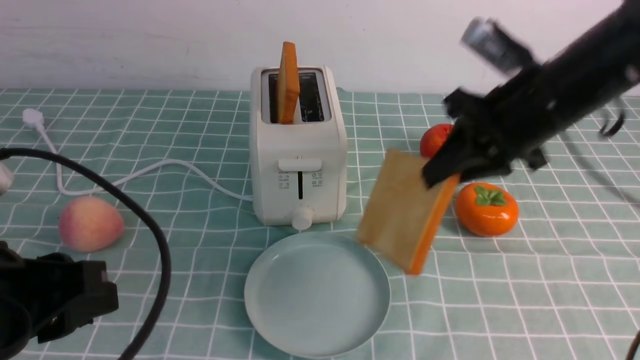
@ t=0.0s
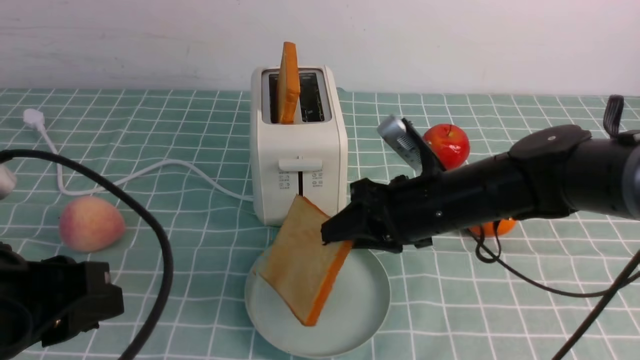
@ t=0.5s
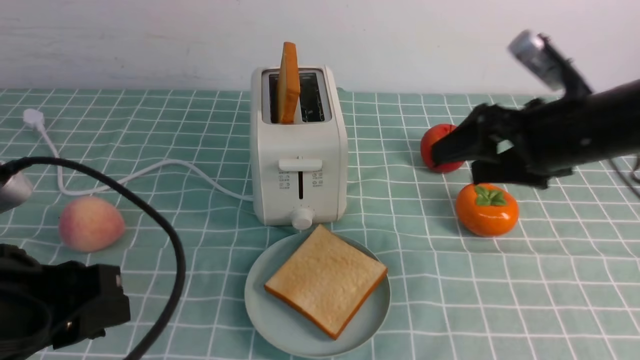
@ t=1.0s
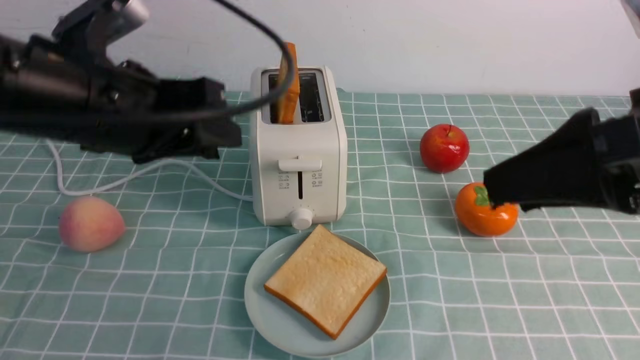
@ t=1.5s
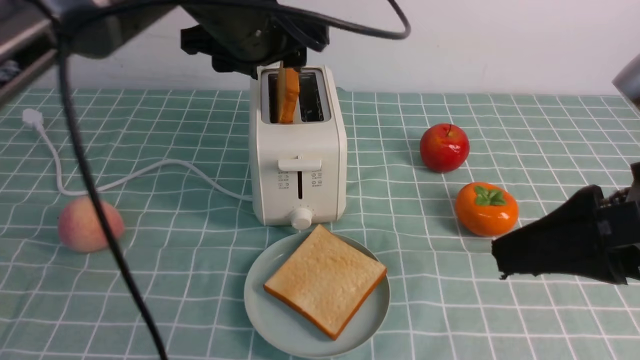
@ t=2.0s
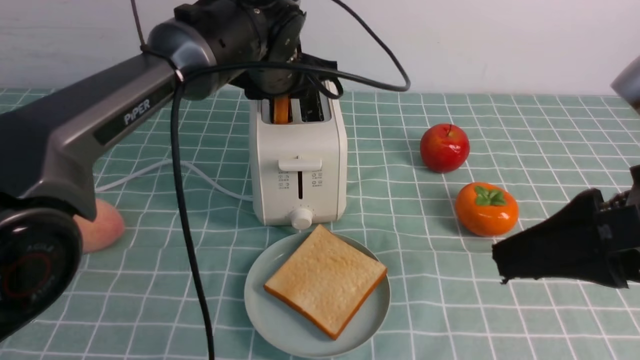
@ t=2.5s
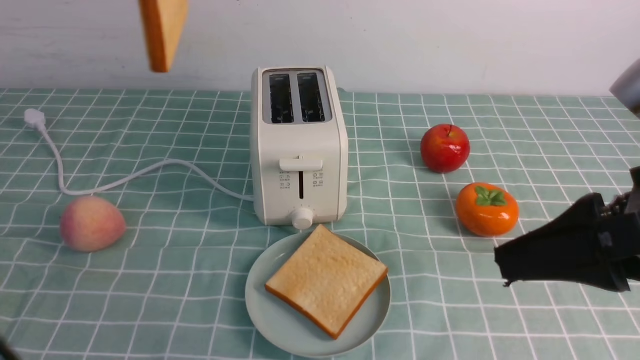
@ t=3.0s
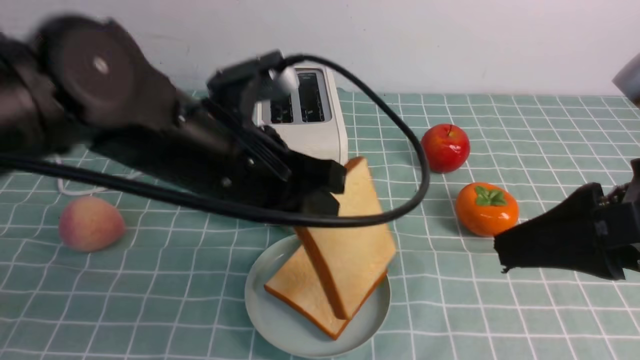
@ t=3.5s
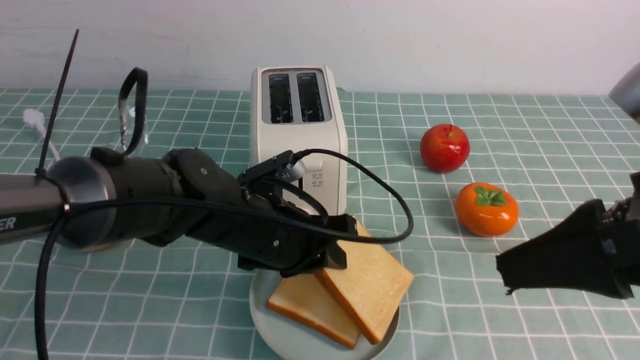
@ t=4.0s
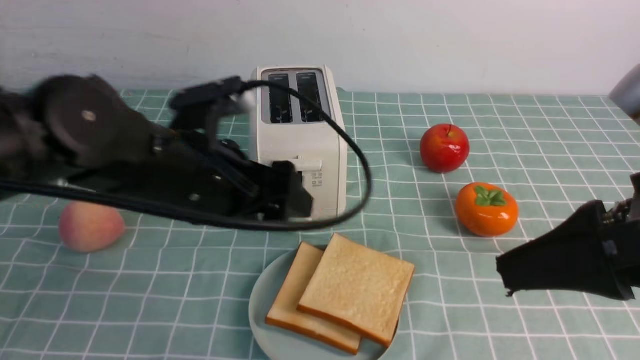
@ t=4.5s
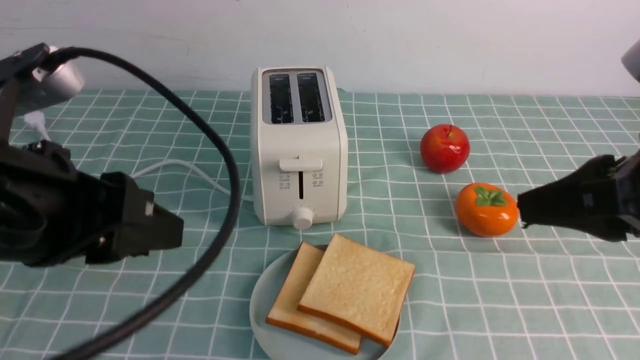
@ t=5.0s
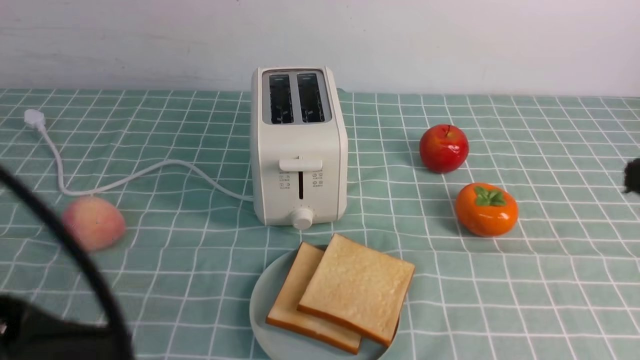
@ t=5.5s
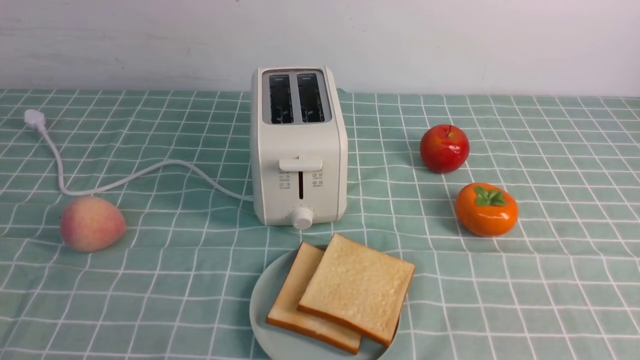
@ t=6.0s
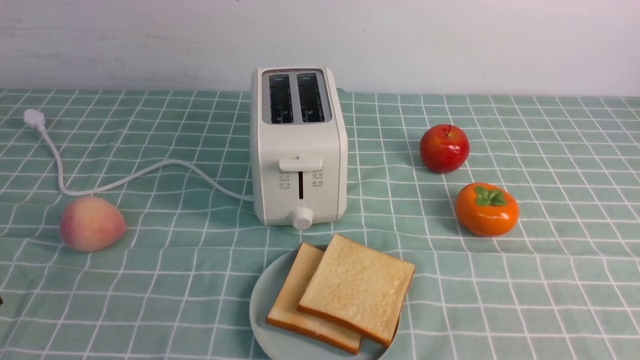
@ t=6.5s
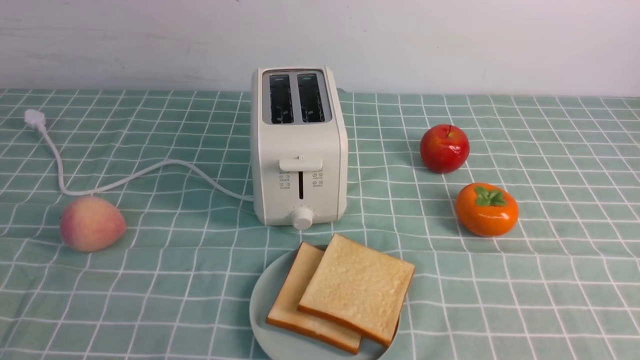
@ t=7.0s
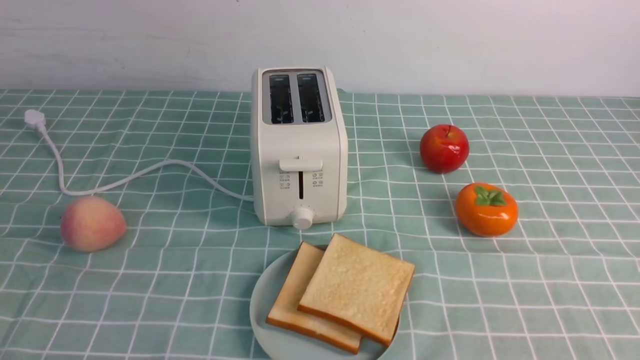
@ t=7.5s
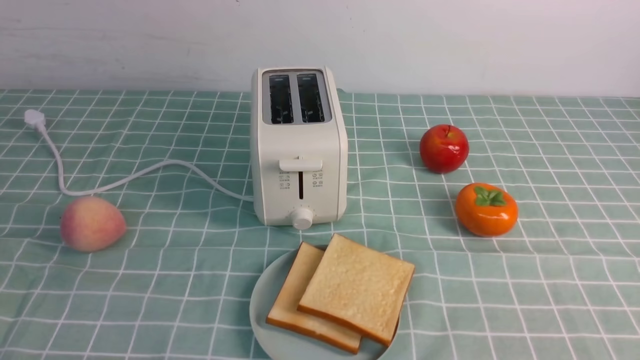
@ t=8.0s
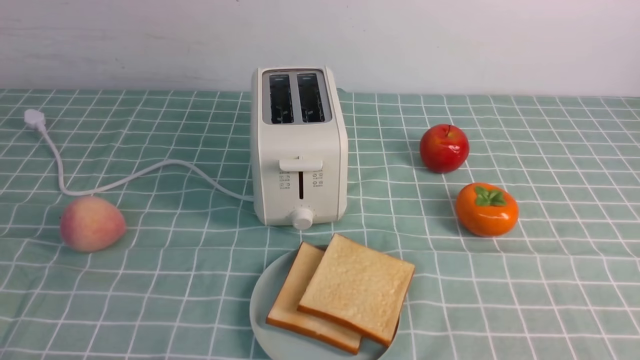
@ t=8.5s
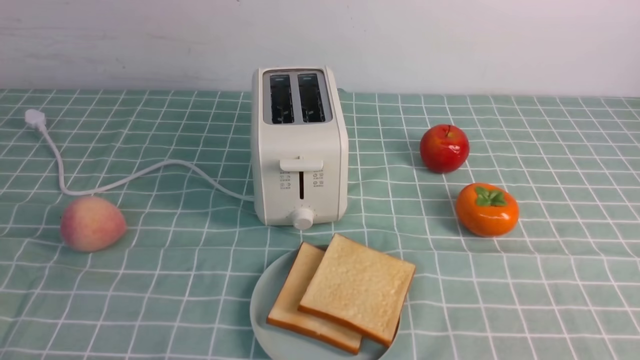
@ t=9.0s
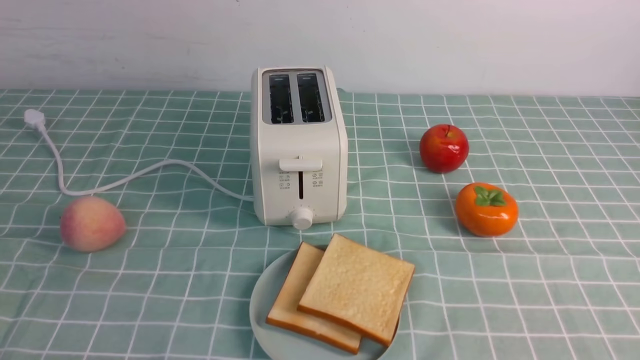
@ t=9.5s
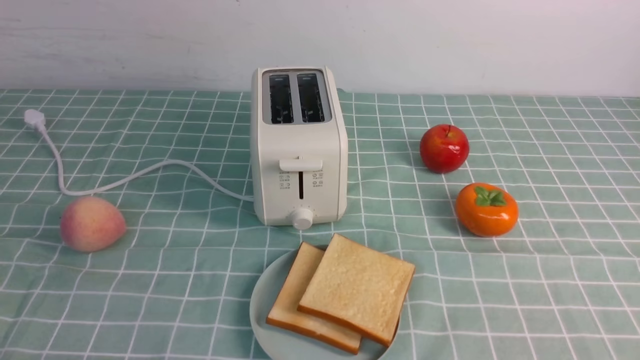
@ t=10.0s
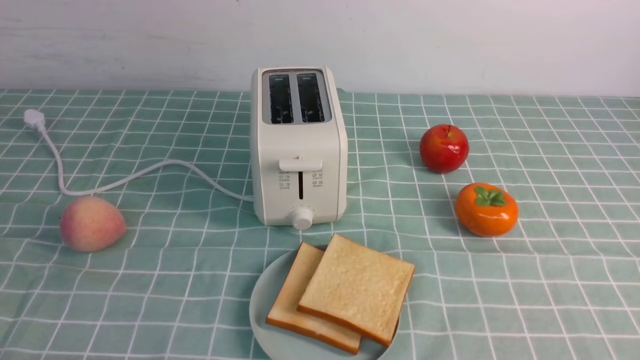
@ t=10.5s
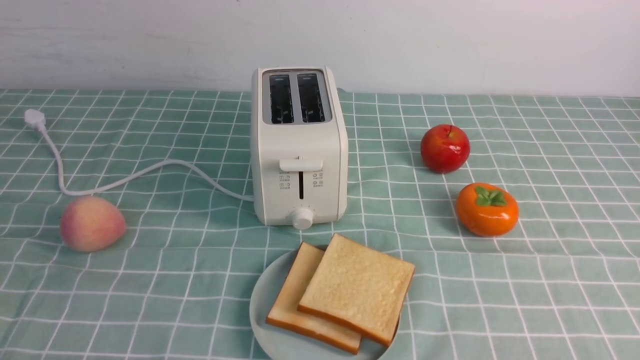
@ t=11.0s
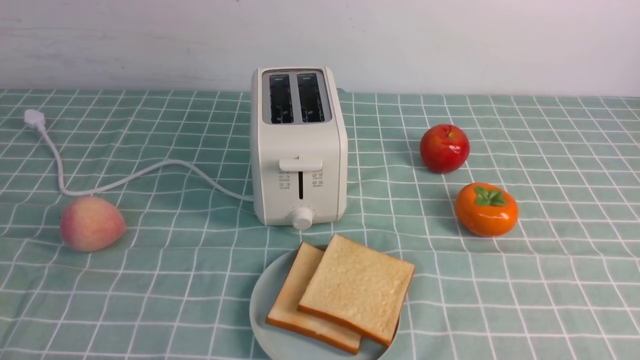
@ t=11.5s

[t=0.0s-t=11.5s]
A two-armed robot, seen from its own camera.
Task of the whole recording: take toasted bread from bread machine on blue coffee table place on plate.
Step, t=0.0s to t=1.0s: use the right arm to put a slice of bread into the plate.
Step, t=1.5s to t=3.0s: use the left arm to take out a slice of bread.
Step, t=3.5s to t=4.0s: use the left arm to put a slice of bread into the empty plate.
t=0.0s to t=2.0s: The left gripper is displaced forward and to the right by approximately 30 cm, and opens. The right gripper goes about 20 cm backward, and opens up.
t=2.0s to t=4.0s: The left gripper moves downward and backward, some 20 cm, and closes.
t=4.0s to t=6.0s: The left gripper heads backward and to the left, covering approximately 35 cm, and closes up; the right gripper travels downward, backward and to the right by some 15 cm, and closes its fingers.
